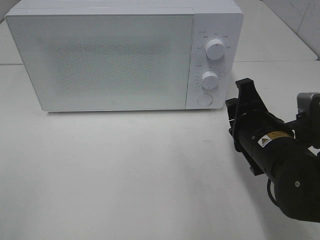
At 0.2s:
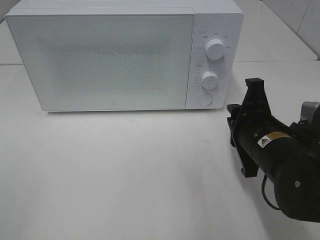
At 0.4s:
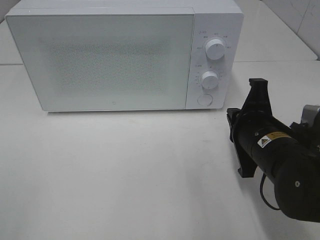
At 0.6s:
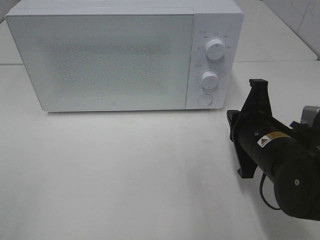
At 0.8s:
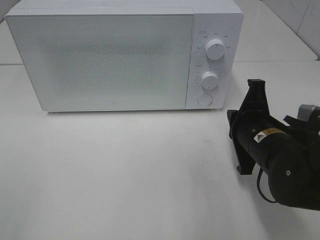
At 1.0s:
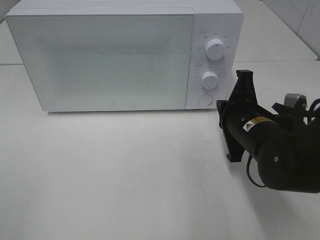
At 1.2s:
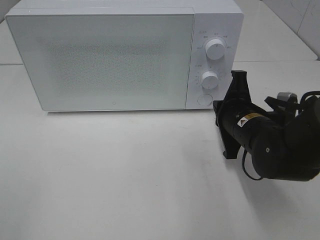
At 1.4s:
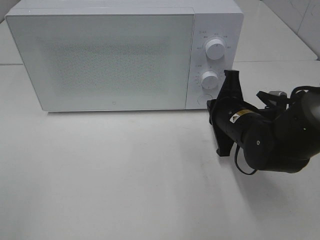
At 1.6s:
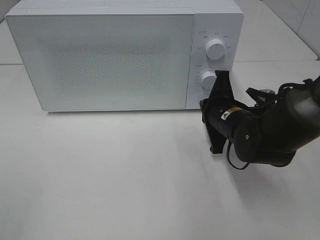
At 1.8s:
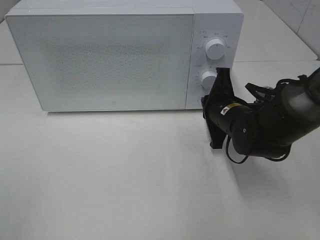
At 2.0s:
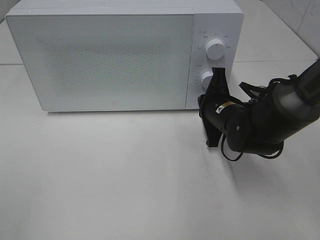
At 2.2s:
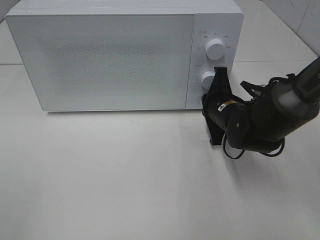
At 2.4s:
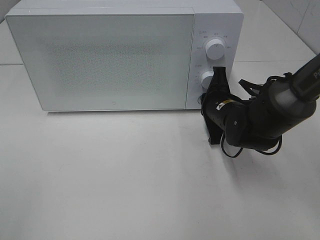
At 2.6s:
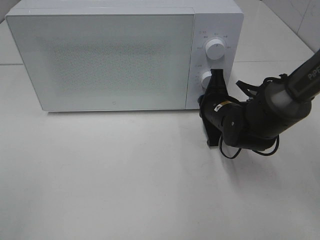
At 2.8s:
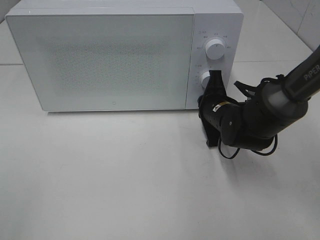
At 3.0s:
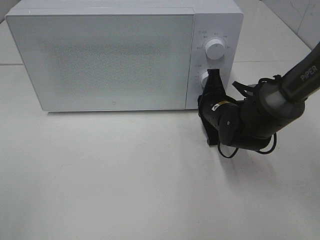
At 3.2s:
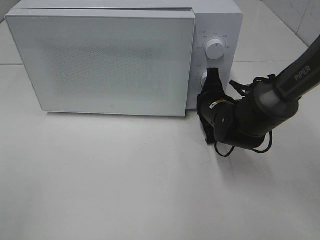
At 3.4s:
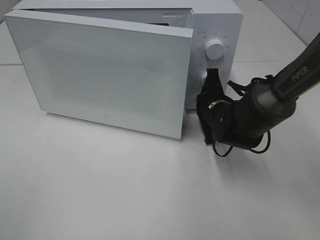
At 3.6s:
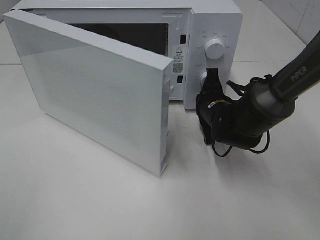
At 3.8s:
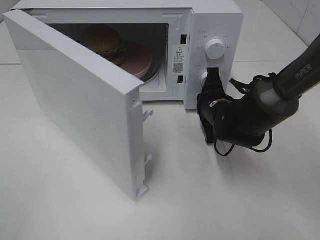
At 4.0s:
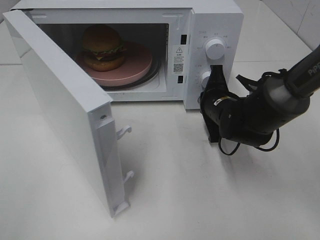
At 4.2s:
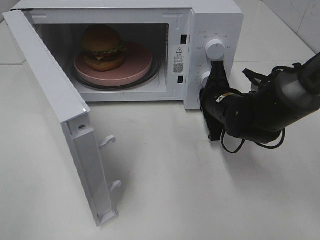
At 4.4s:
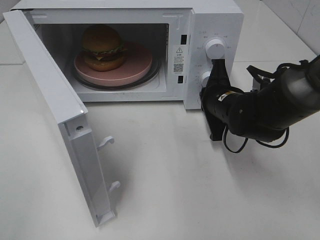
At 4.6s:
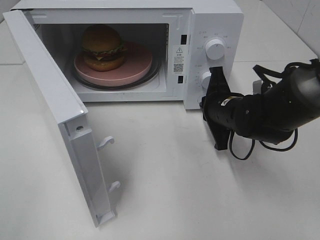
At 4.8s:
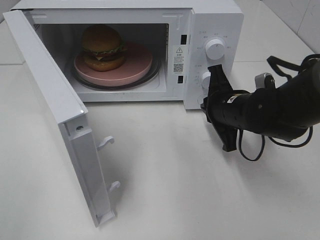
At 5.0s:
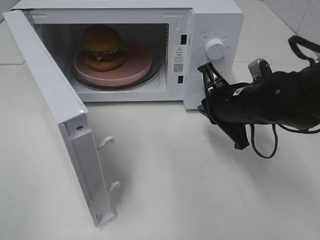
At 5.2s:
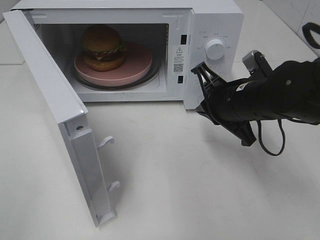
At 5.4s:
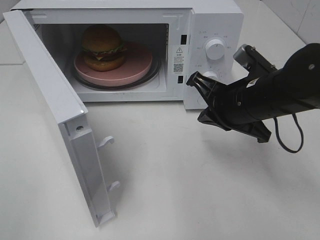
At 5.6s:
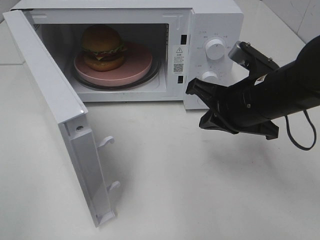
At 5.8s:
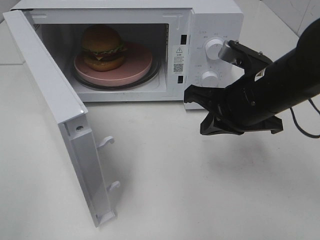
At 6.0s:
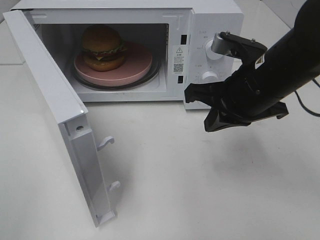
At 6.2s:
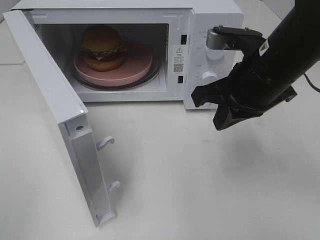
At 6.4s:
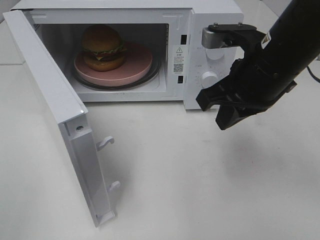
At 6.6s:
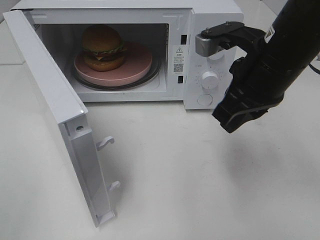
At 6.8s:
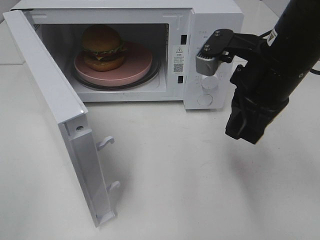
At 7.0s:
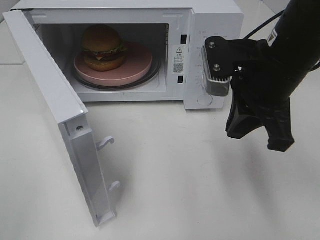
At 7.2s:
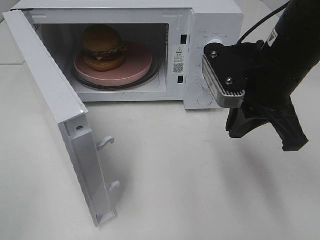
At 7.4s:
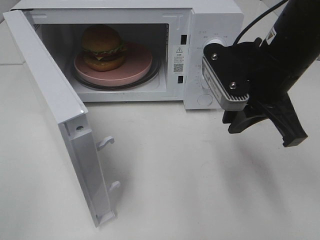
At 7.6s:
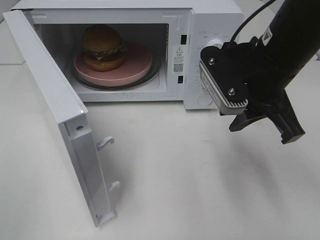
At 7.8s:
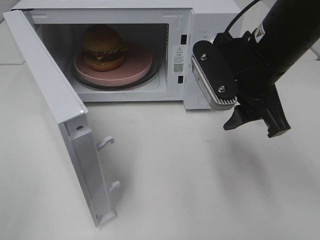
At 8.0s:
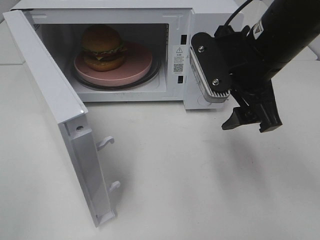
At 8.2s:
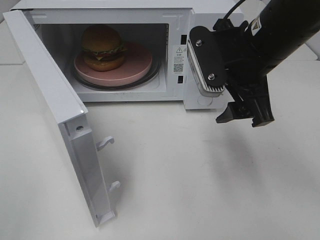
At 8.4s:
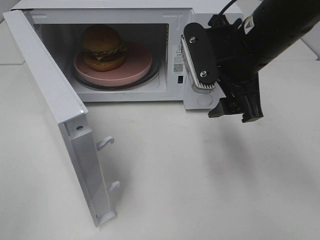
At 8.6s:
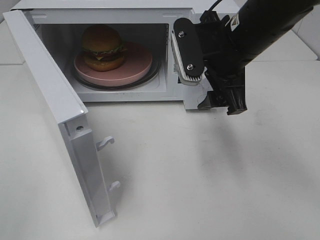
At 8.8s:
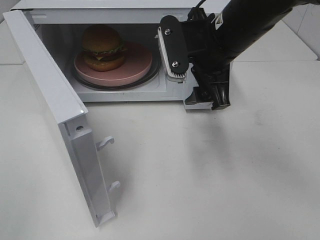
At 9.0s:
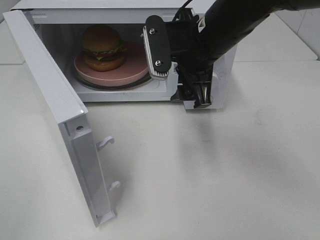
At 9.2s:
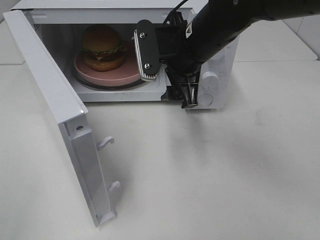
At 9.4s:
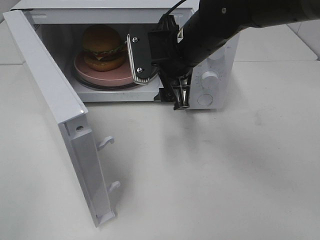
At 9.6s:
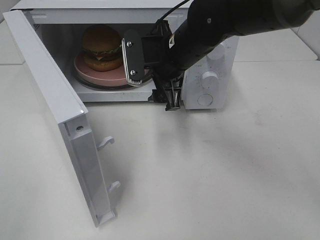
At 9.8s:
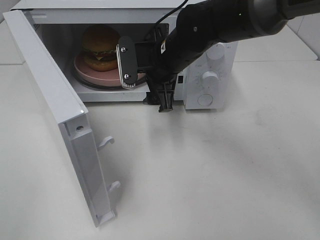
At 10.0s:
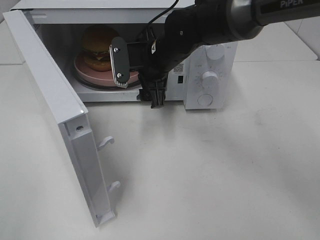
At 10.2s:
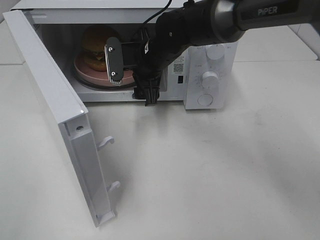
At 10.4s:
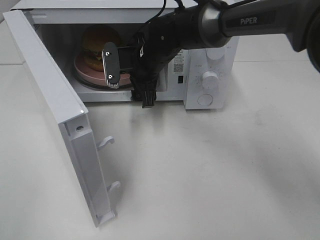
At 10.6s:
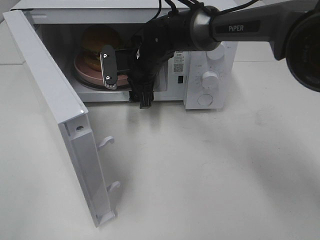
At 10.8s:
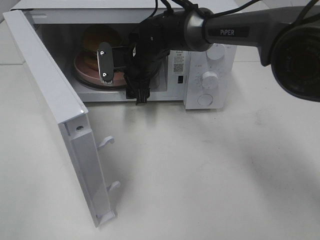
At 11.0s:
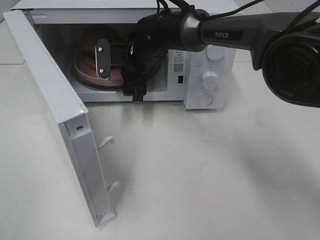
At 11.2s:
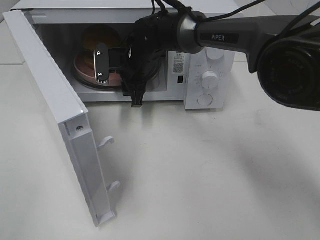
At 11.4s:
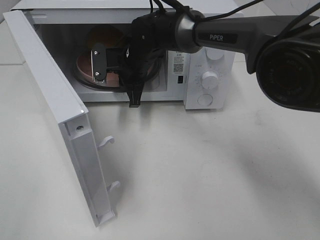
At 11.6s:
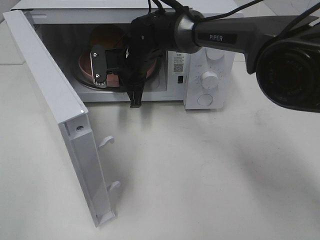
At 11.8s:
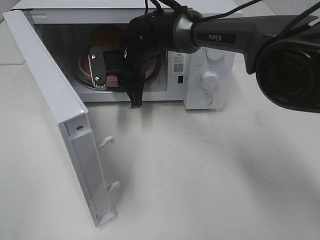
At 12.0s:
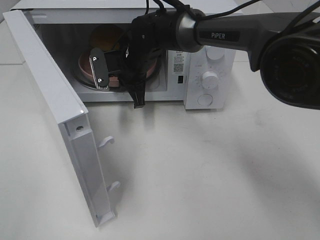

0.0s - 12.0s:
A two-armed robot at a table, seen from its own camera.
Task of the whole recording: Heat the burger.
Step, 0.0s - 4.6s: Right hand: press the switch.
Step, 4.8s - 11.8s: Right hand: grab the plate with the hamburger.
0.0s - 1.6s: The right gripper shifts about 10 cm forward, and closes up.
1.6s - 3.0s: The grippers stay close to where they were, moving slightly.
4.4s - 6.0s: The right gripper shifts about 15 cm upward and backward.
6.0s - 7.6s: The right gripper opens its fingers.
7.6s - 9.0s: The right gripper moves to the left and forward, approximately 10 cm, and opens its fingers.
9.0s - 10.4s: The right gripper goes about 15 cm forward, downward and to the left.
10.4s - 12.0s: The right gripper closes up.

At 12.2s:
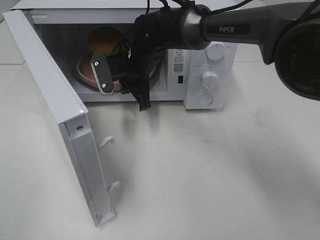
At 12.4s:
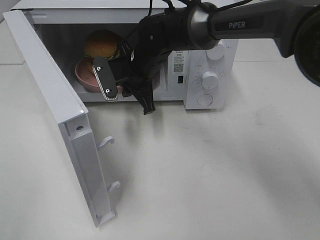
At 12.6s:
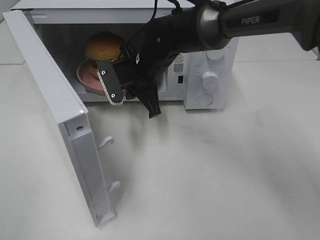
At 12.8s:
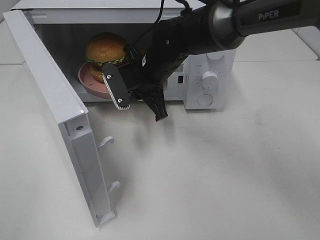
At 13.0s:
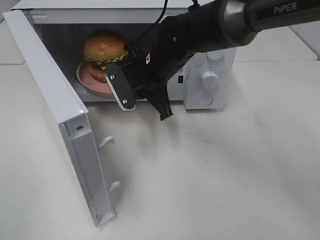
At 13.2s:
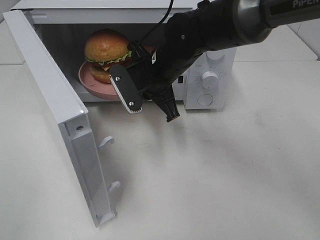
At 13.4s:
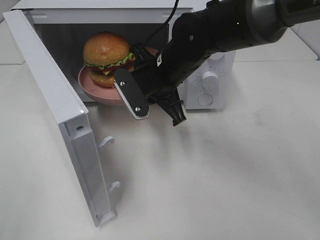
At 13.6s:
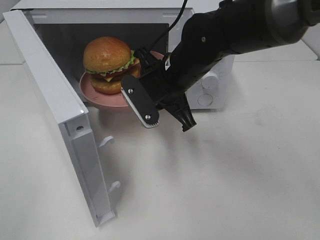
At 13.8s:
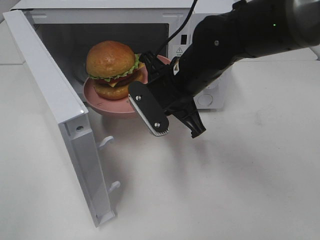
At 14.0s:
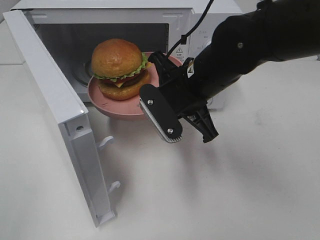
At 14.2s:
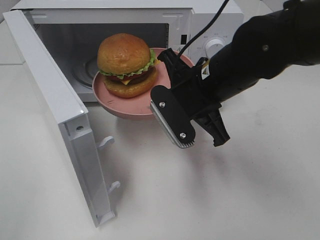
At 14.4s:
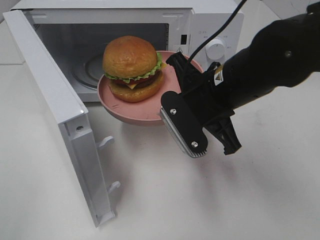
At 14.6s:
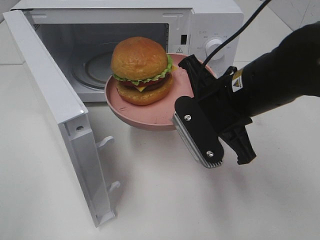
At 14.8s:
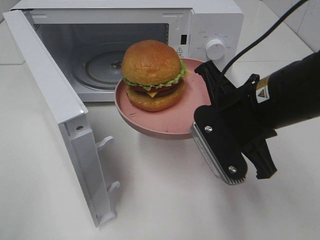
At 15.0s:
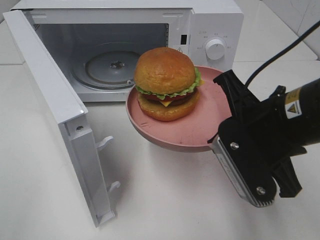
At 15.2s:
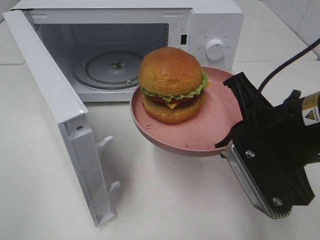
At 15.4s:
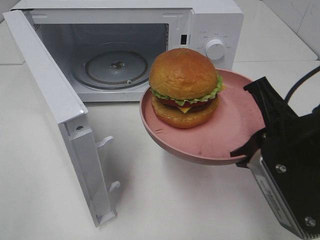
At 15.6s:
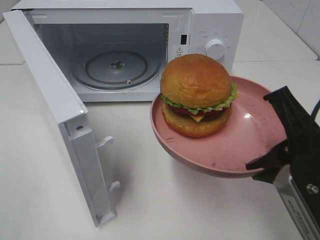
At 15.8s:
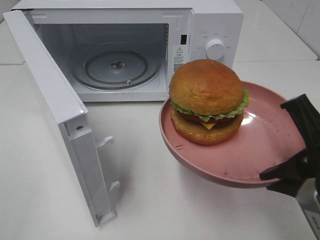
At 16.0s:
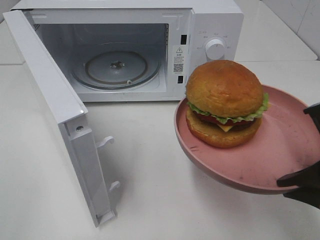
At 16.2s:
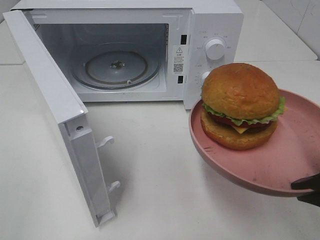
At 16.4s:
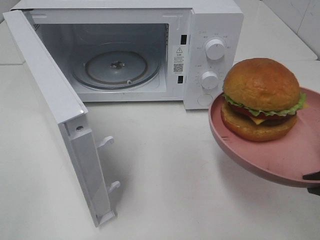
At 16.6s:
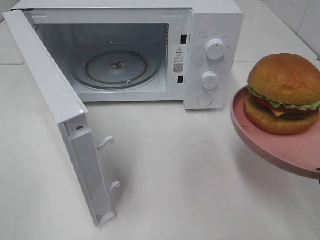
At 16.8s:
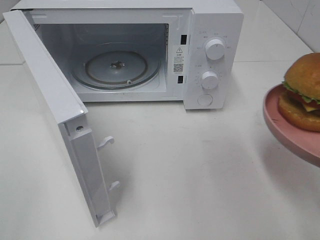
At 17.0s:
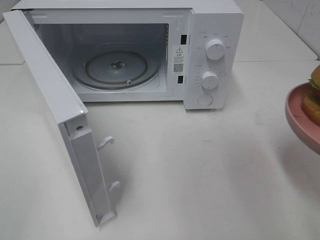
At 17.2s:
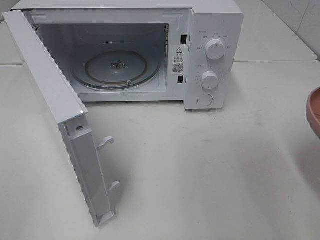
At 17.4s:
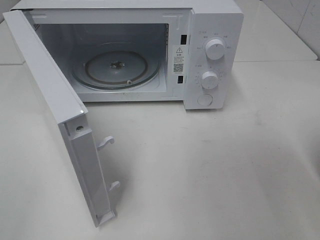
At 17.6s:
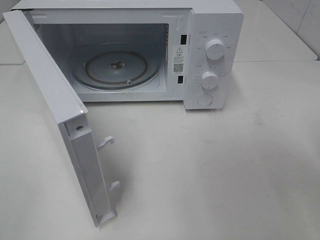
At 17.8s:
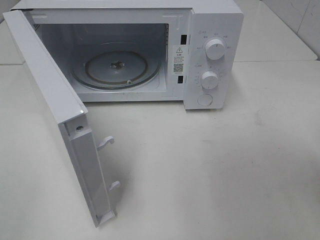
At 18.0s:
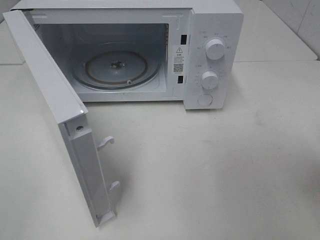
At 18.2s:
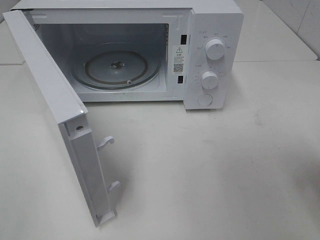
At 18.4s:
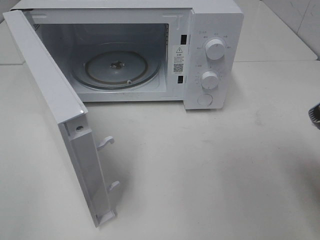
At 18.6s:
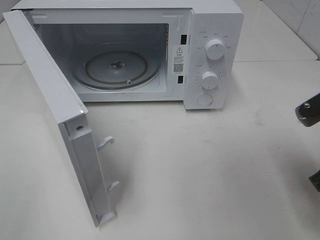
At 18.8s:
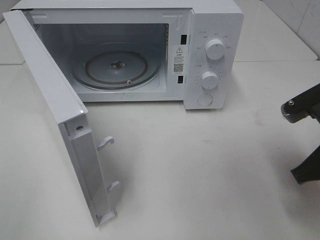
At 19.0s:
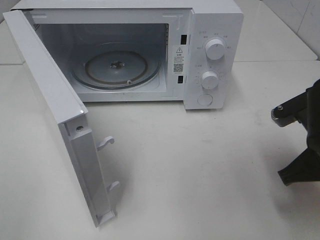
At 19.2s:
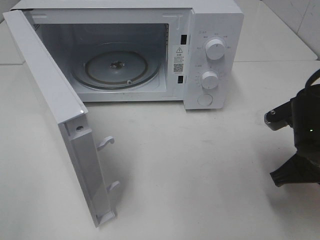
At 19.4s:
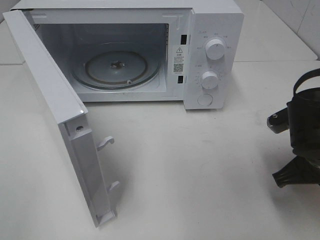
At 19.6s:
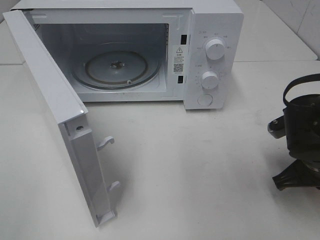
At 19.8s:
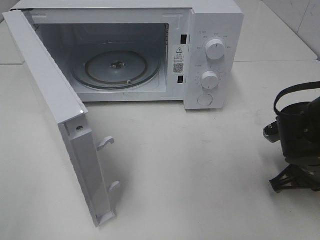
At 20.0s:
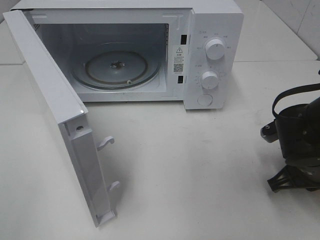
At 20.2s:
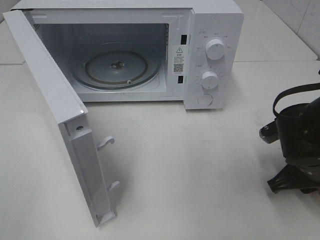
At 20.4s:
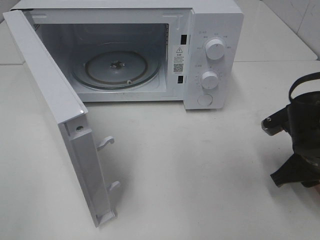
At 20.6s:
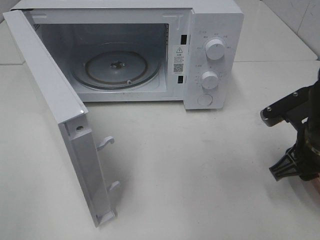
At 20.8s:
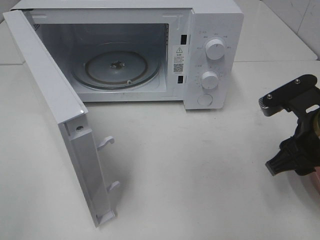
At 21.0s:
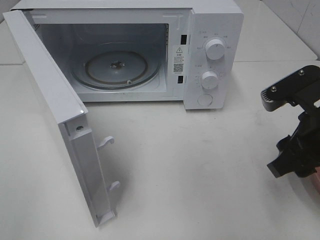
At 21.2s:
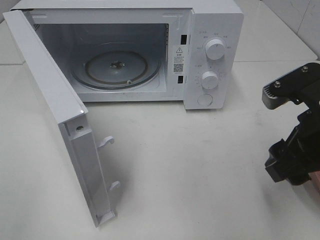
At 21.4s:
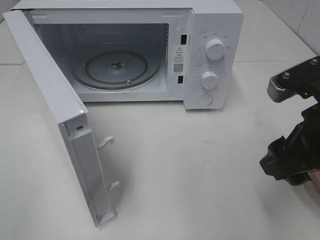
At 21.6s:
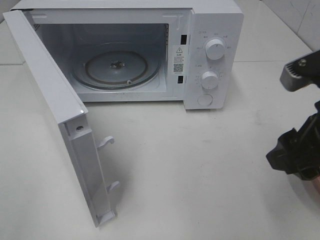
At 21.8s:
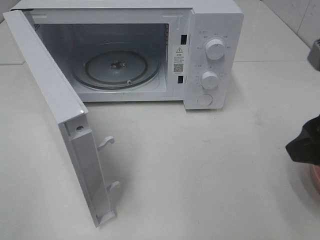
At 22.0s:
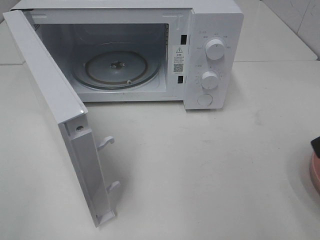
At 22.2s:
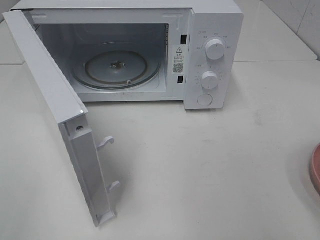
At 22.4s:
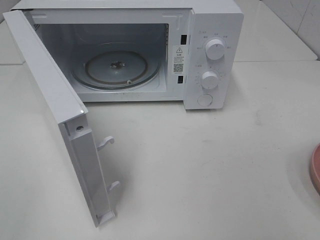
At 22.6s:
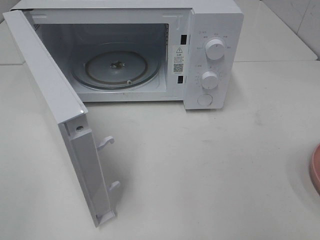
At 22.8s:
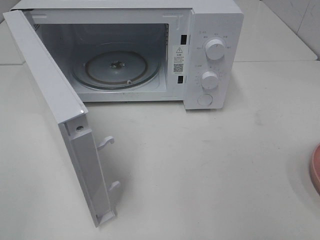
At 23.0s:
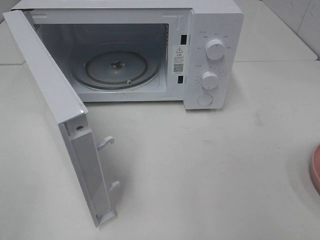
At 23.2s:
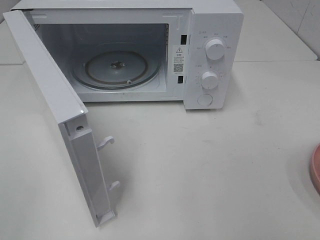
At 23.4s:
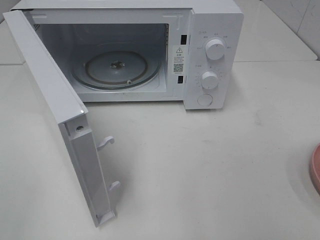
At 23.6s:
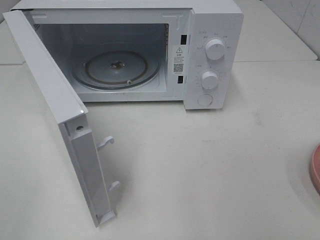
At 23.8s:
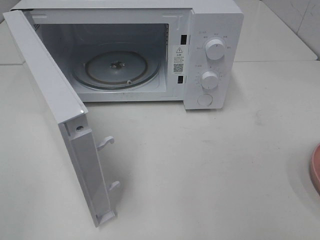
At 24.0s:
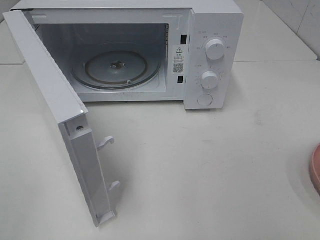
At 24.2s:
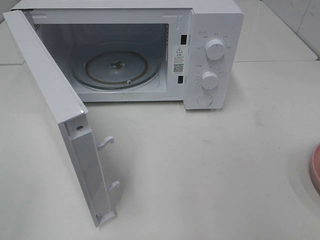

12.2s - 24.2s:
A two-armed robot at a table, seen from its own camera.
Task of the whole recording: Heat the burger.
Step, 12.2s - 20.6s: Right hand: place the plate on the table.
12.2s - 13.8s: The right gripper moves backward and to the right, roughly 15 cm.
13.8s - 15.2s: The right gripper heads backward and to the right, covering approximately 15 cm.
15.2s - 16.6s: The right gripper moves to the right and backward, approximately 10 cm.
18.2s - 19.8s: The right gripper is displaced downward and forward by approximately 15 cm.
19.8s - 21.2s: The right gripper heads upward, covering some 10 cm, and opens.
21.2s - 22.6s: The right gripper travels backward, to the right and upward by some 15 cm.
